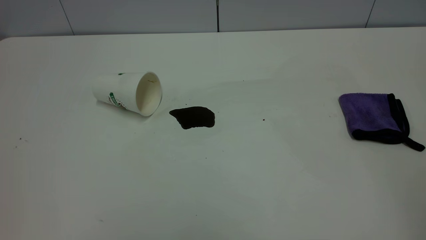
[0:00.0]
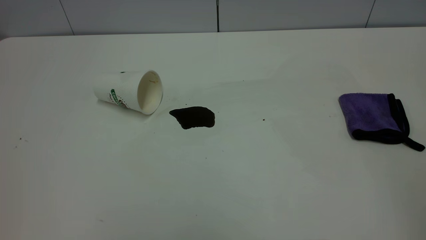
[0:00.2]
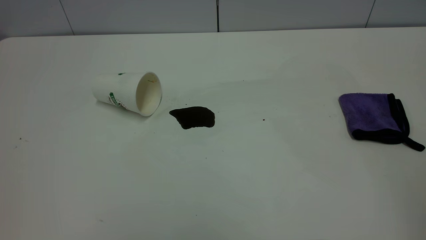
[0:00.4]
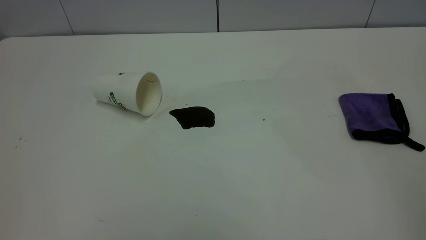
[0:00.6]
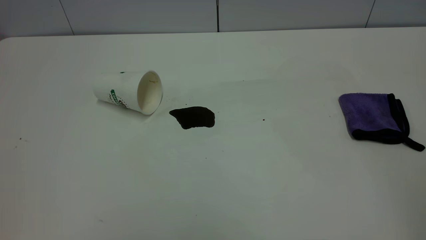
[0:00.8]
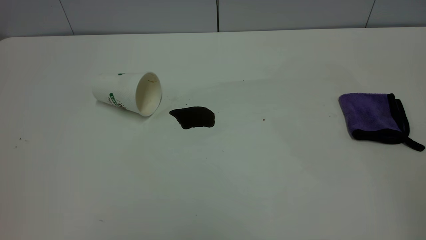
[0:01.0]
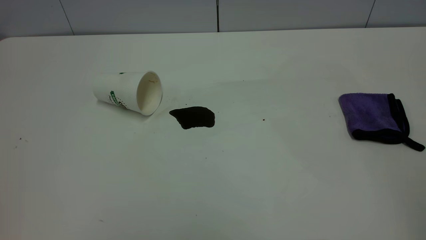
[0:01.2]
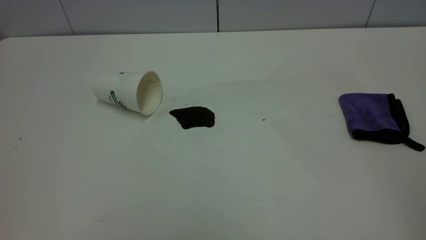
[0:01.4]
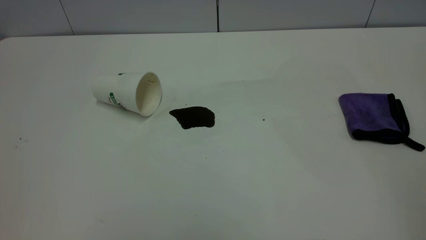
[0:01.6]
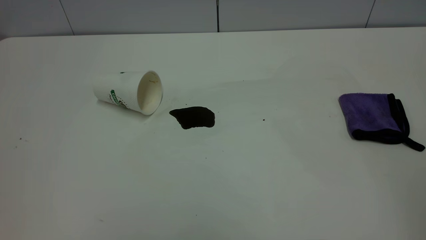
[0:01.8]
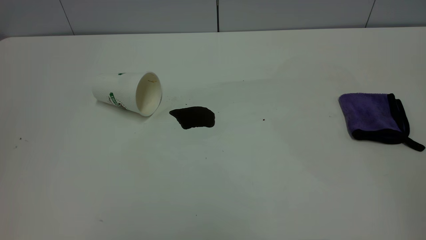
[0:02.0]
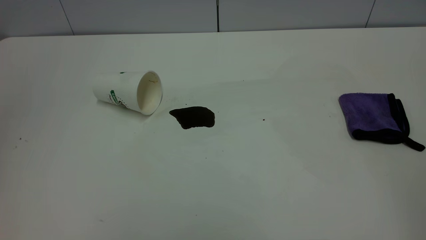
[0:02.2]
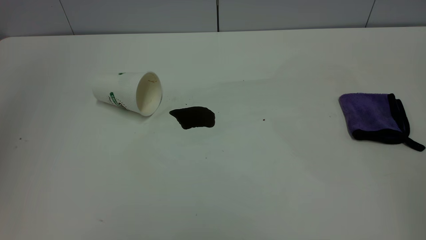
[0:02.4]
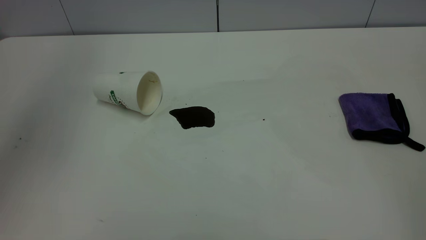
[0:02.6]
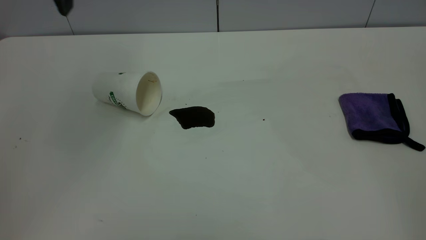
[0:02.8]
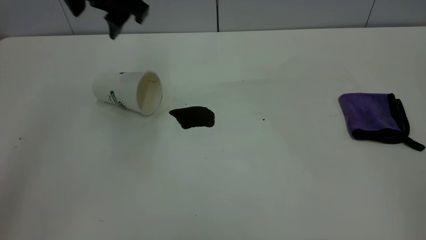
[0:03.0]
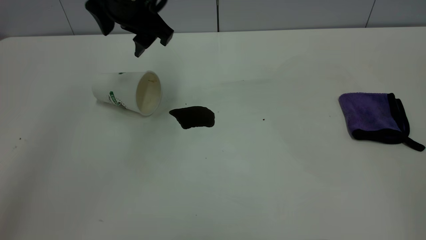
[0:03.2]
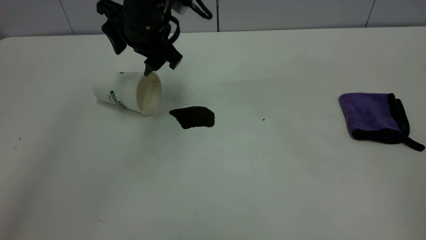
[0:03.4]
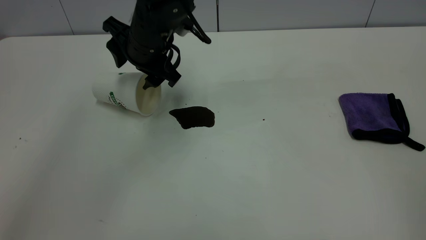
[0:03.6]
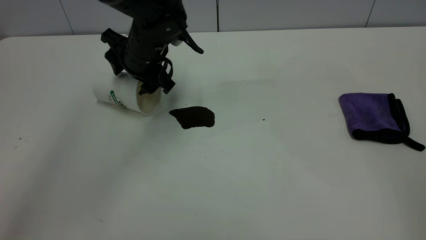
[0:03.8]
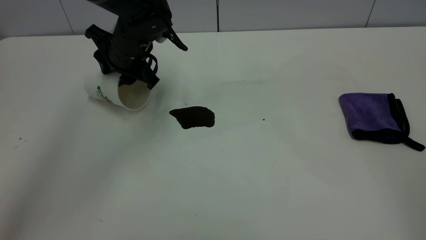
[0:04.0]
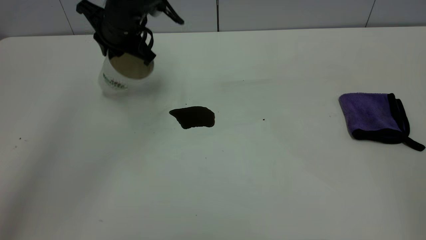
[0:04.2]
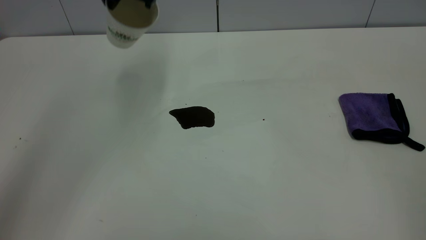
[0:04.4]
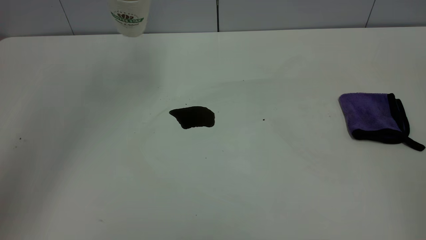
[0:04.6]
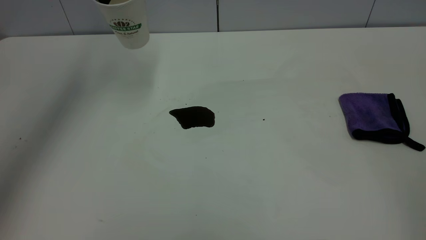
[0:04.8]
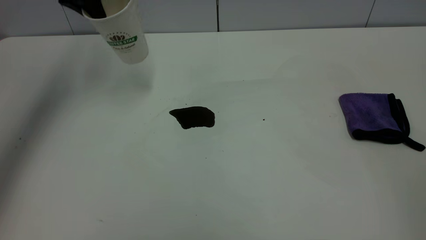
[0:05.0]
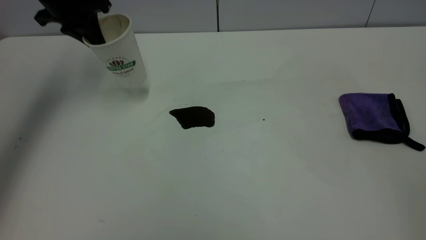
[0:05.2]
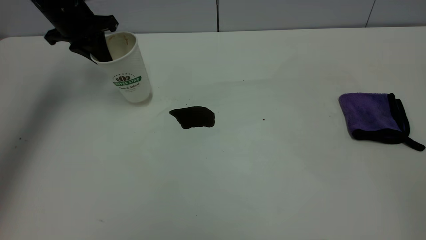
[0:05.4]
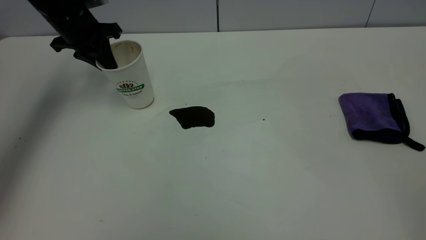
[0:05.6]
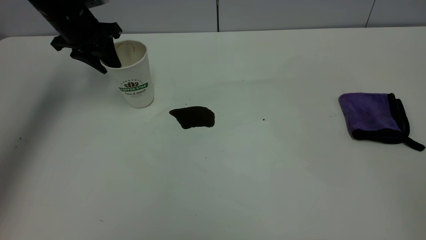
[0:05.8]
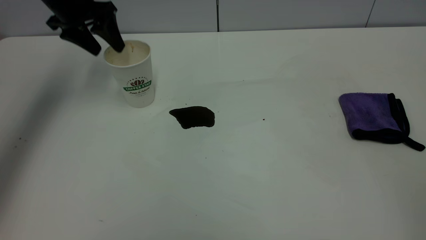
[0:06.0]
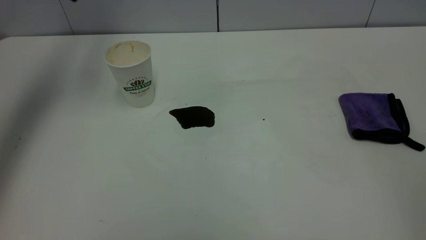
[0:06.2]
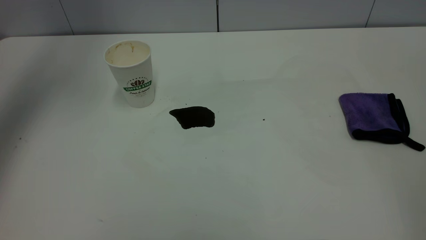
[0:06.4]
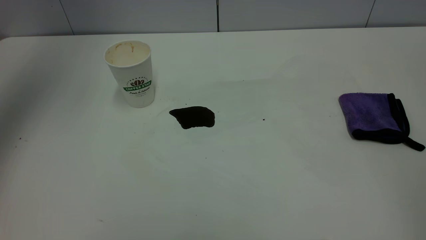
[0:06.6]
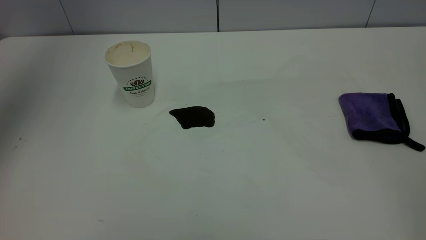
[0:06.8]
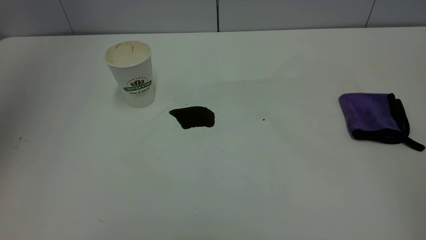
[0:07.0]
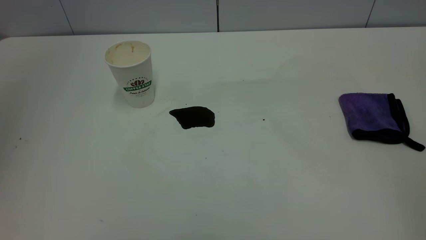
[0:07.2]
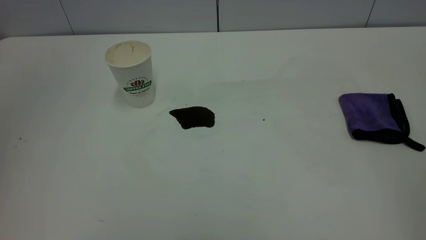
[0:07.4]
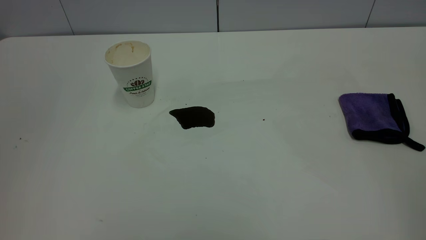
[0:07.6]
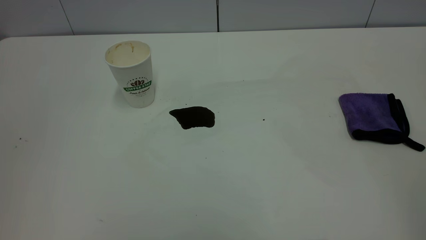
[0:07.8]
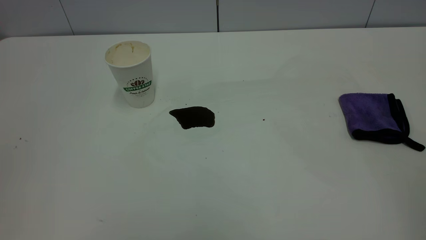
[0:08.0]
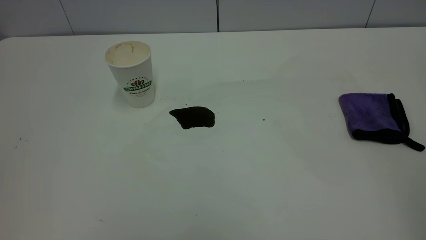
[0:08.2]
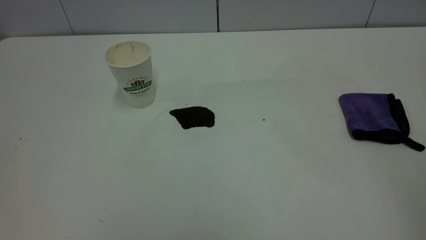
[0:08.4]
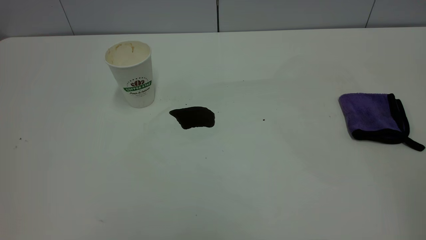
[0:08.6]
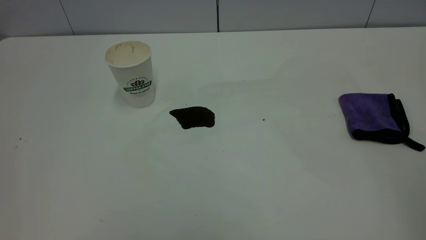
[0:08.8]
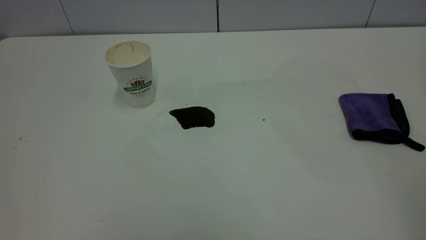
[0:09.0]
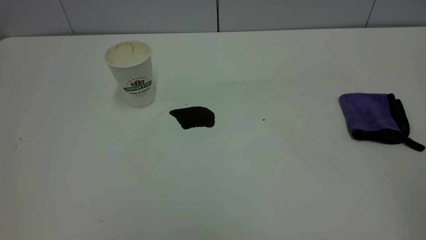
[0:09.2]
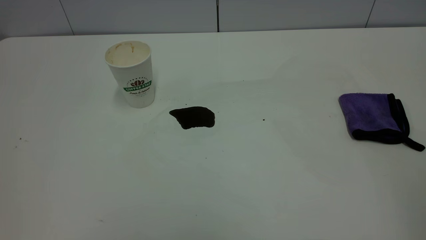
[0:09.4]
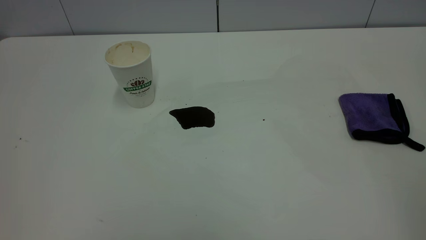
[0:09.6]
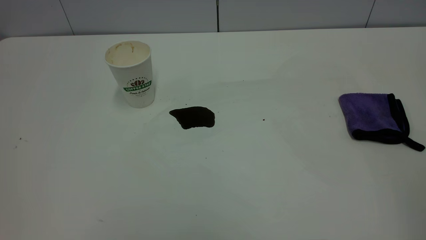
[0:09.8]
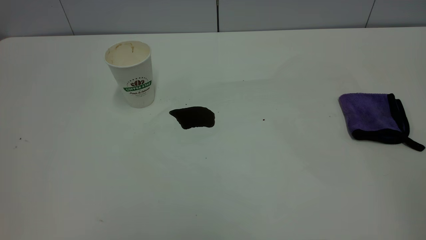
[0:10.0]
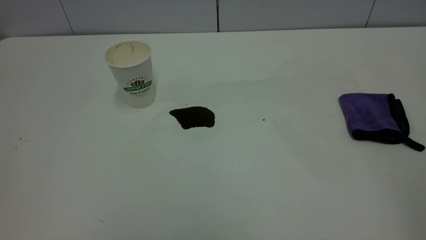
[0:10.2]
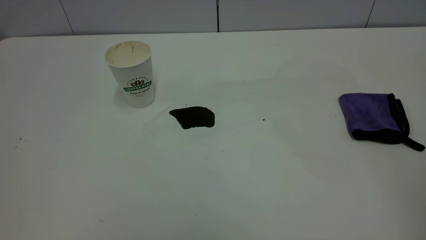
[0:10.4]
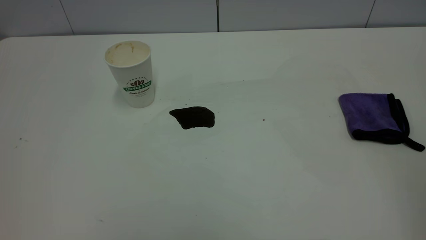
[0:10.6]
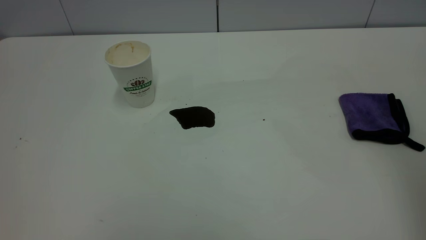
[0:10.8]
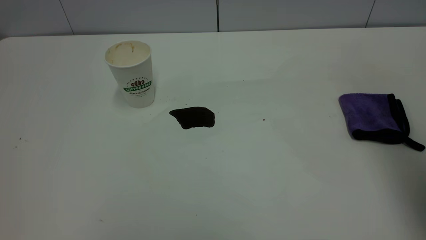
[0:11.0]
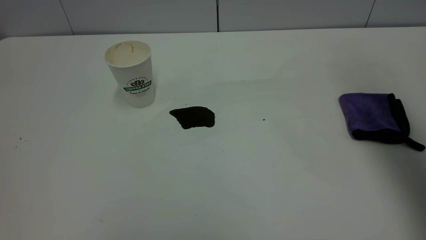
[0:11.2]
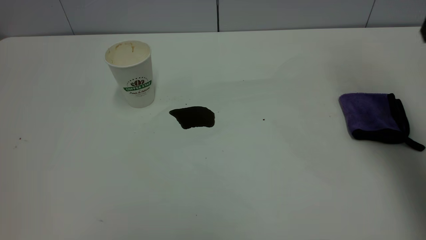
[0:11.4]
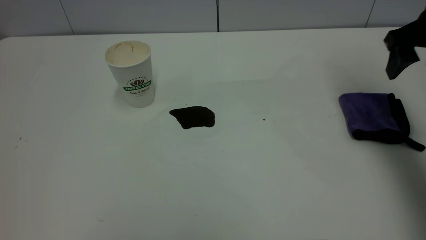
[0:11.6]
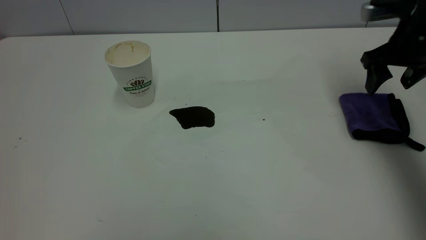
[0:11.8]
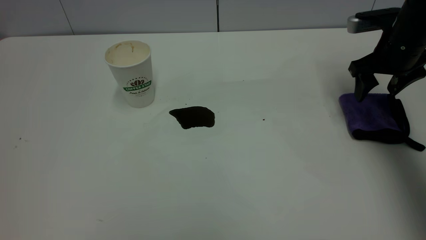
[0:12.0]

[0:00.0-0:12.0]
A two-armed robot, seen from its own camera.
Task of the whole recording: the left gripper pick up the fallen cup and place it upright, the right gripper grasp the purple rag and wipe the coffee stain on the table, the right gripper put the purple rag back in its original position.
Step, 0:00.0 to 0:06.0: Stand the paper cup upright.
0:00.0 to 0:01.6: Neither gripper changes place.
0:01.6 to 0:03.0: The left gripper heads forward and to the right, covering some 40 cm, and opens its fingers.
0:03.0 to 0:04.4: The left gripper travels forward by some 5 cm, travels downward and back again, approximately 15 cm each way, and closes.
0:04.4 to 0:06.0: The left gripper travels to the left and downward by roughly 15 cm, and opens up.
0:06.0 to 0:07.6: The left gripper moves backward and upward, roughly 40 cm, and closes up.
0:09.0 to 0:10.4: Neither gripper changes place.
0:10.4 to 0:12.0: The right gripper shifts approximately 50 cm forward and downward, and opens up.

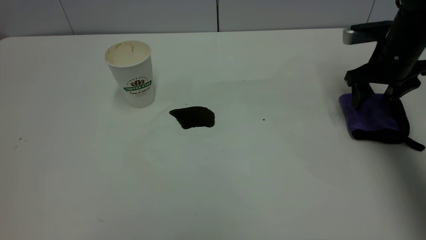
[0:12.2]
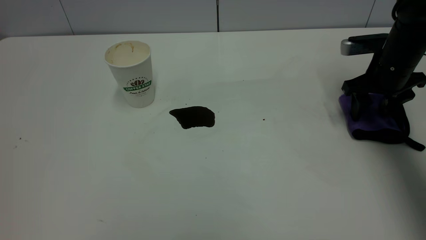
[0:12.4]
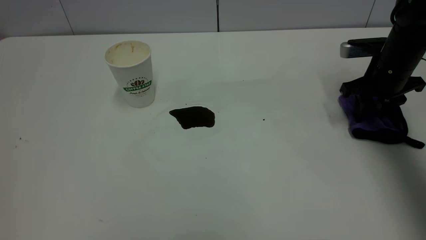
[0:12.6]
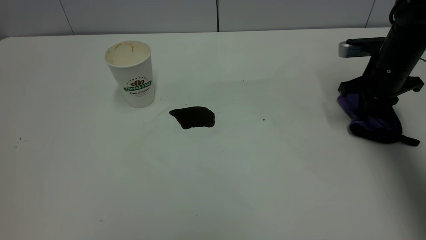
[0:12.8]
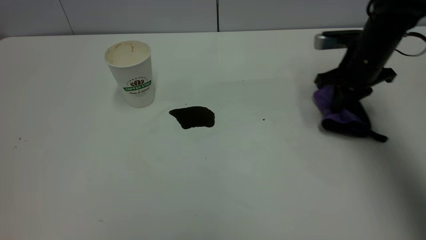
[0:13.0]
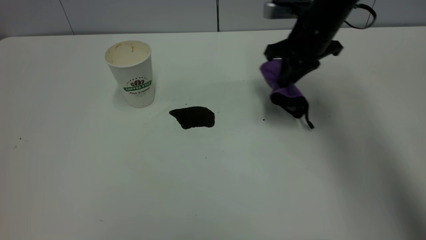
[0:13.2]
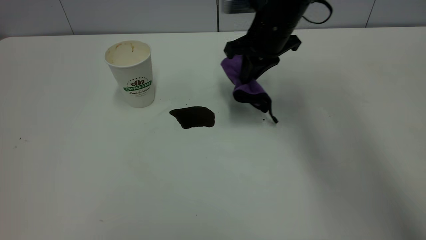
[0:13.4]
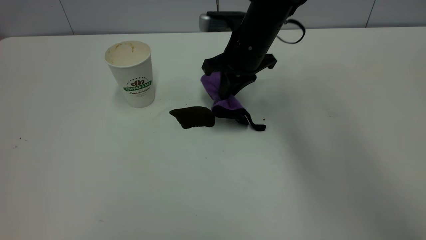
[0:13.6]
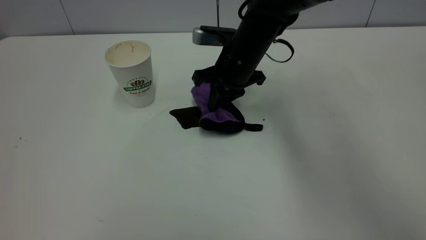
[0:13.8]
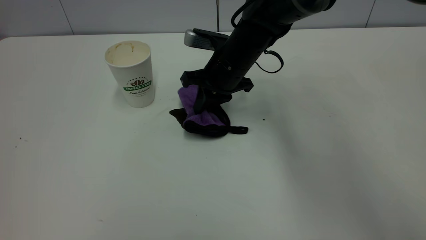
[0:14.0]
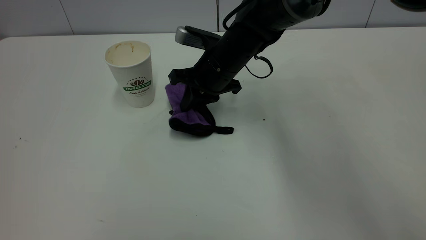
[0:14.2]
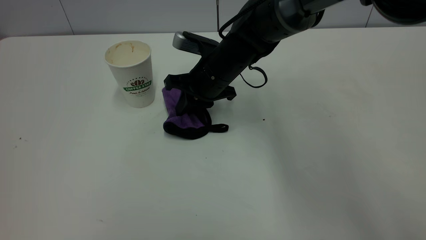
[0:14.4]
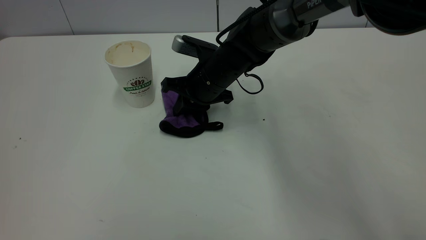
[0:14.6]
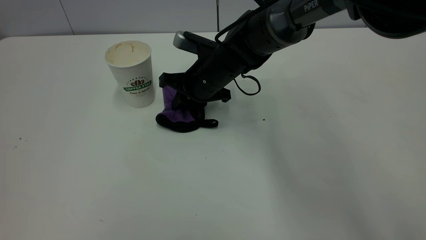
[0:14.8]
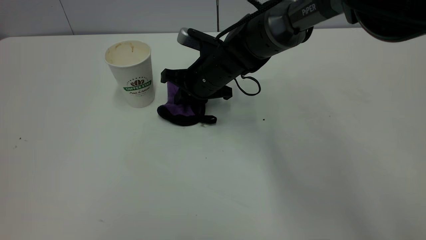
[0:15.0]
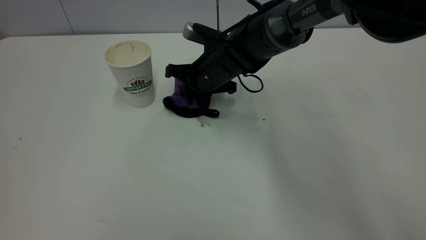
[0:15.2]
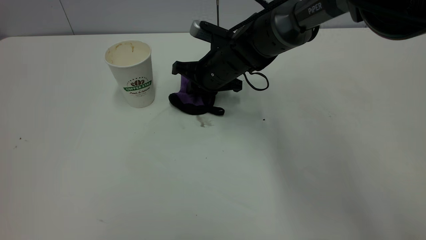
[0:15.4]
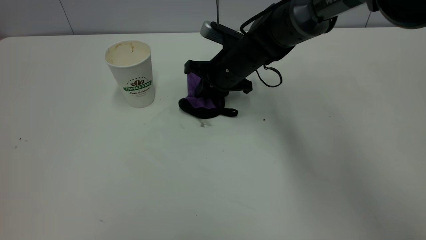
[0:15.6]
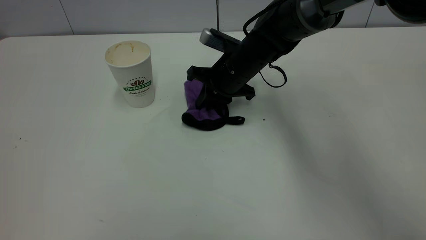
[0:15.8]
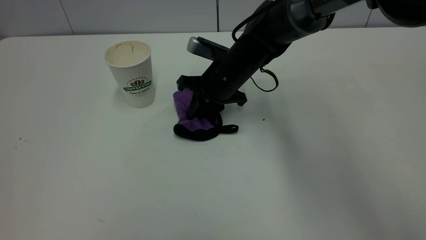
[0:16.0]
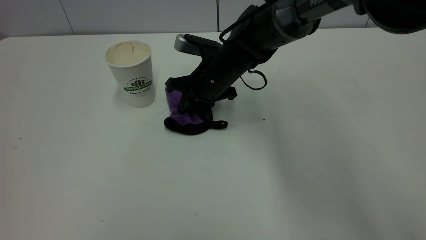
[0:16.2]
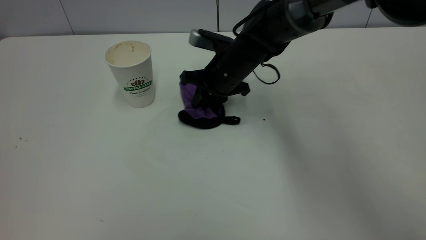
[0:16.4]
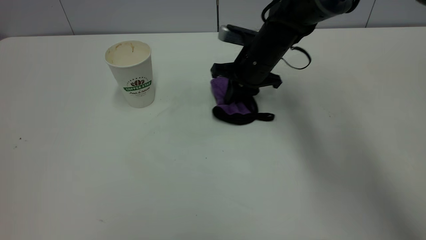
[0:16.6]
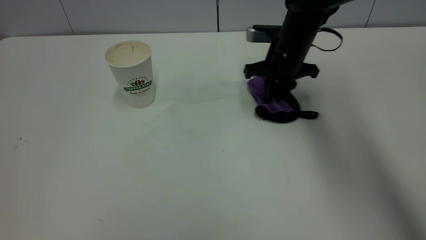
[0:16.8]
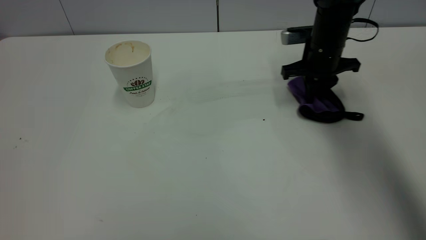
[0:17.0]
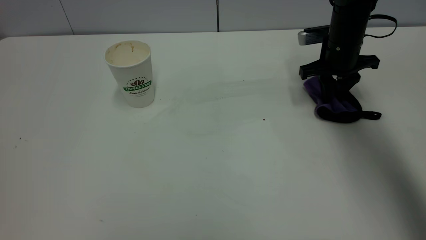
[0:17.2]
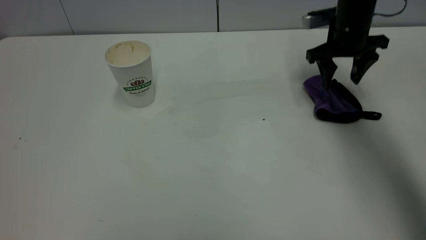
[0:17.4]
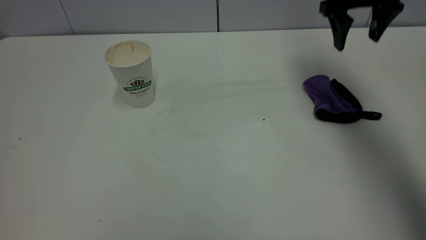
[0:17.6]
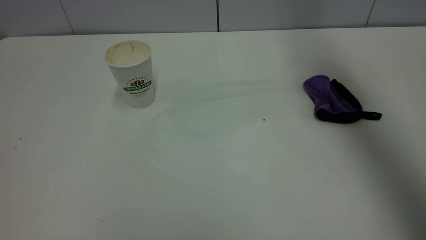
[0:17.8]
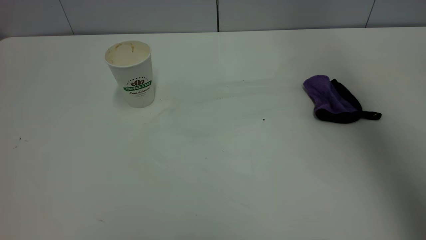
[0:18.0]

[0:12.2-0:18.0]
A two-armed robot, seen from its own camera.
Task of the whole recording: the left gripper pick up the fallen cup and place it upright, the right gripper grasp the purple rag and wipe the coffee stain on the table, the right gripper put the purple rag back in its original position.
Step, 0:12.2 to 0:17.4: Wipe the stains off the table with a rag.
0:12.2 to 0:13.6: The right gripper shifts some 25 cm to the left, and closes its fingers.
0:13.6 to 0:15.0: The right gripper heads downward and to the left, covering approximately 10 cm.
0:15.0 to 0:16.6: The right gripper travels to the right by approximately 10 cm.
0:16.6 to 0:18.0: The right gripper travels upward by about 35 cm, and opens its fingers.
